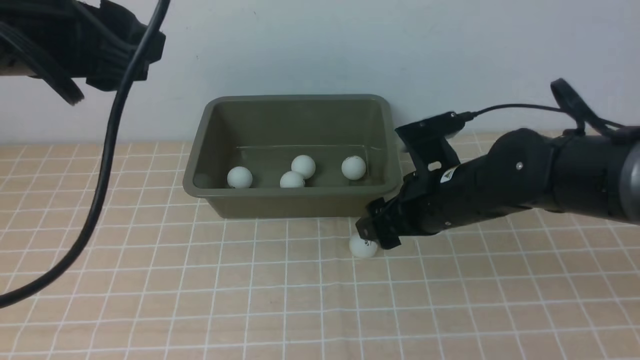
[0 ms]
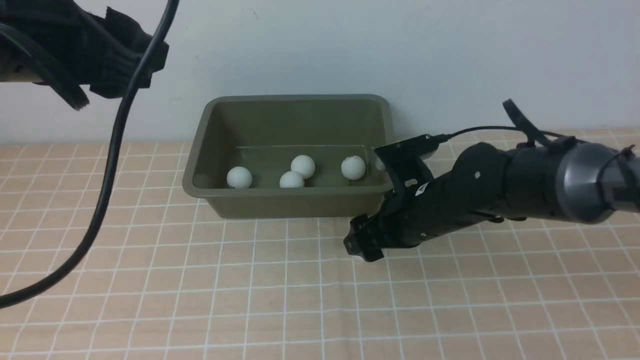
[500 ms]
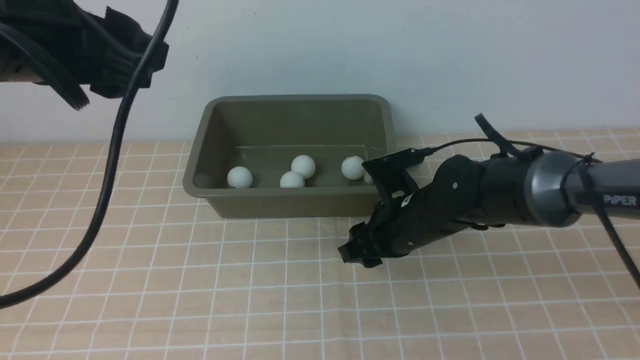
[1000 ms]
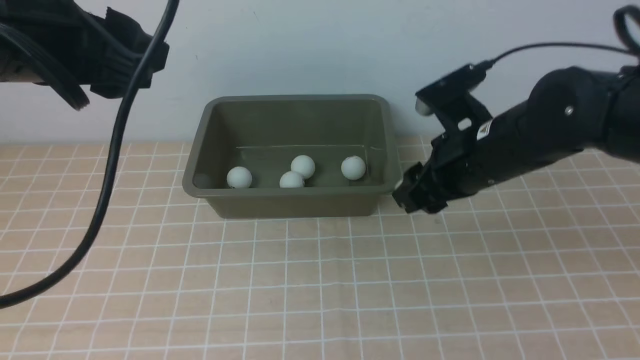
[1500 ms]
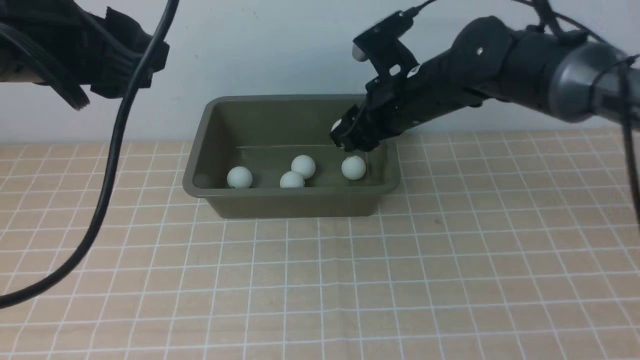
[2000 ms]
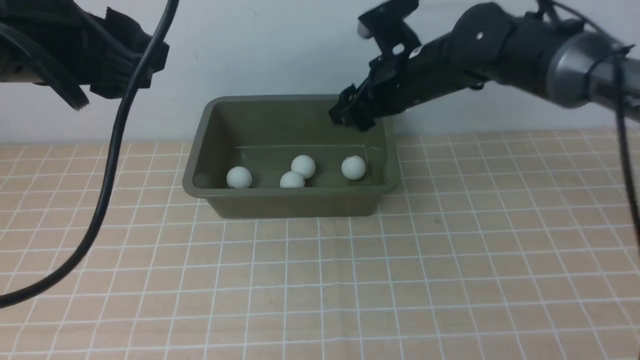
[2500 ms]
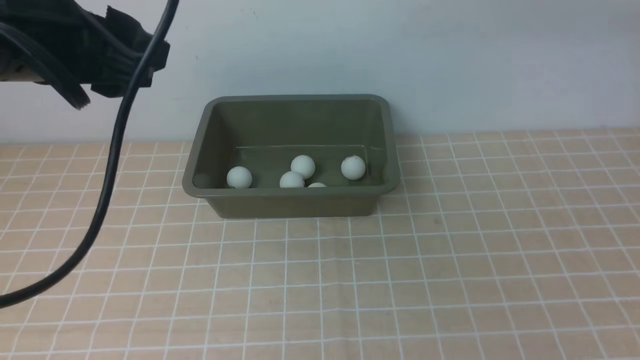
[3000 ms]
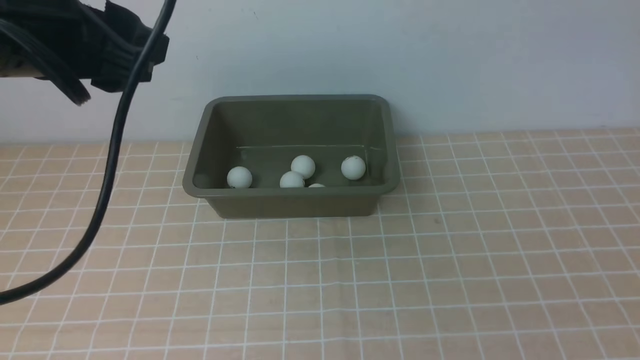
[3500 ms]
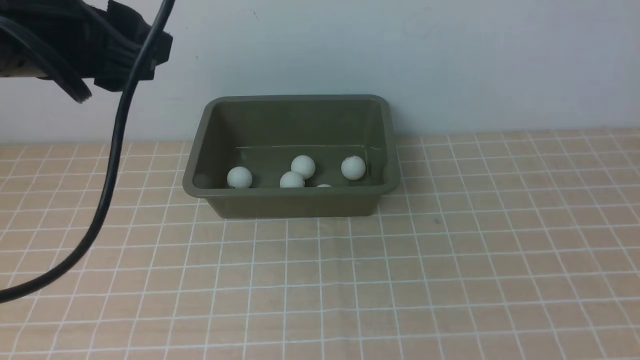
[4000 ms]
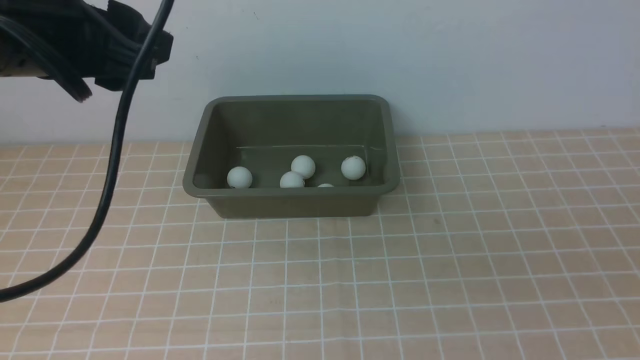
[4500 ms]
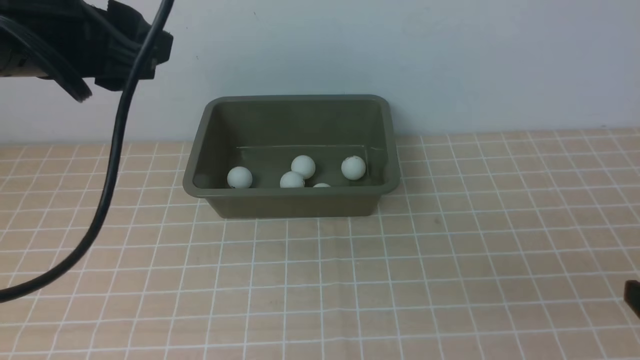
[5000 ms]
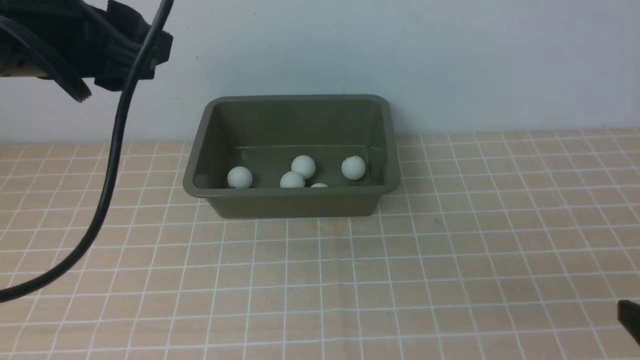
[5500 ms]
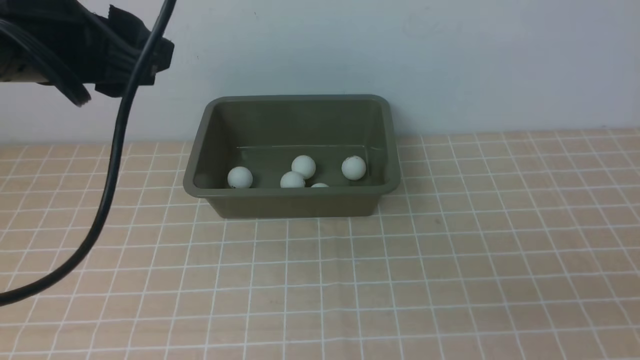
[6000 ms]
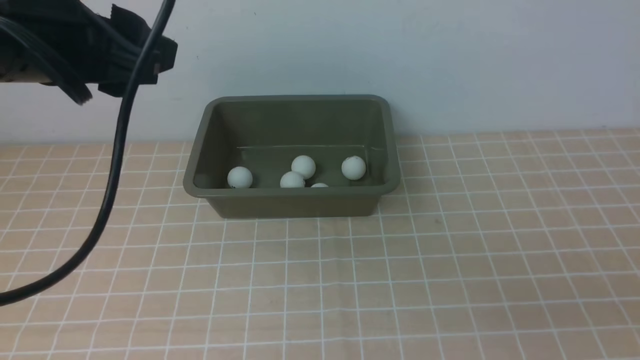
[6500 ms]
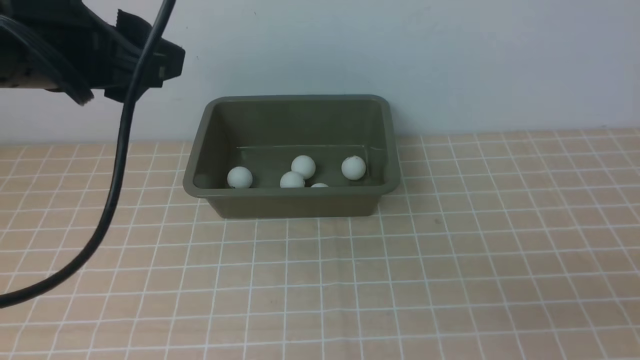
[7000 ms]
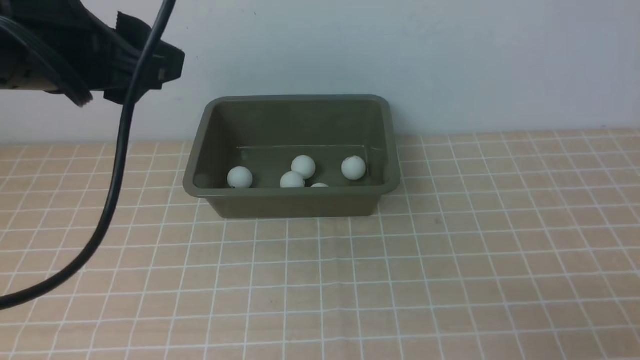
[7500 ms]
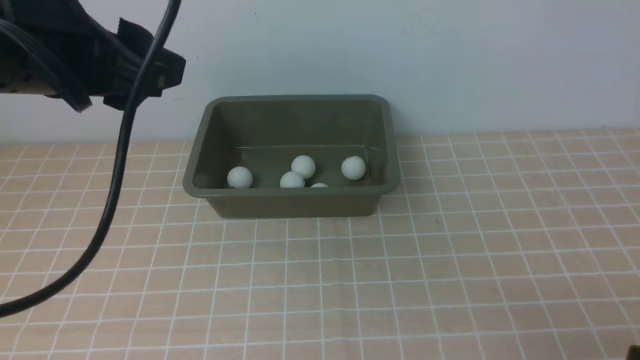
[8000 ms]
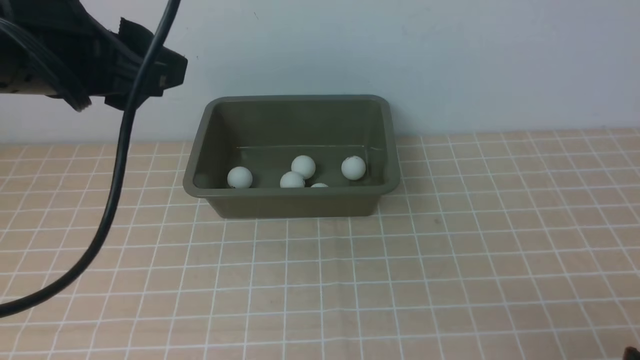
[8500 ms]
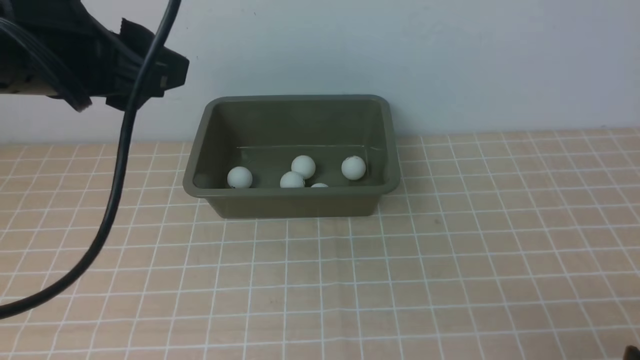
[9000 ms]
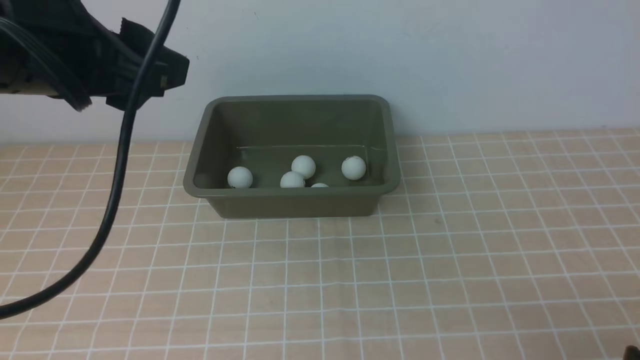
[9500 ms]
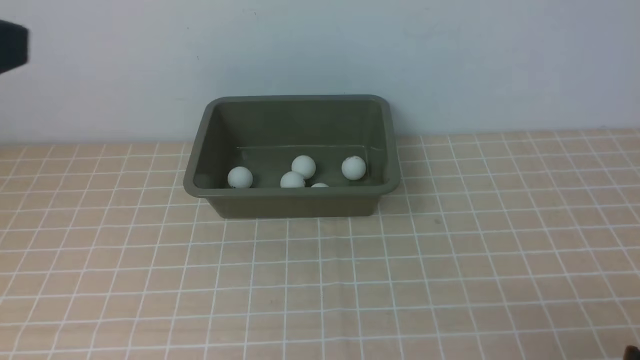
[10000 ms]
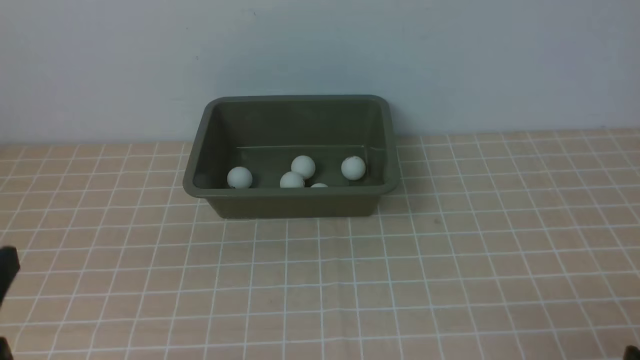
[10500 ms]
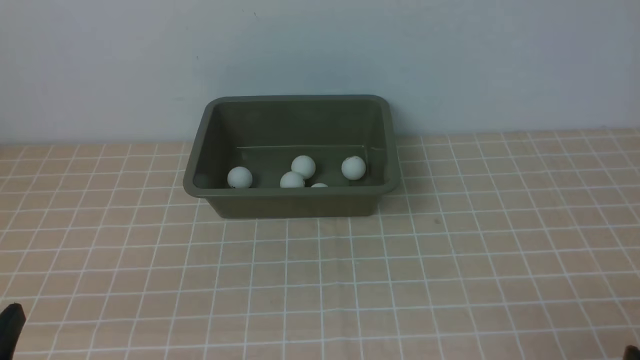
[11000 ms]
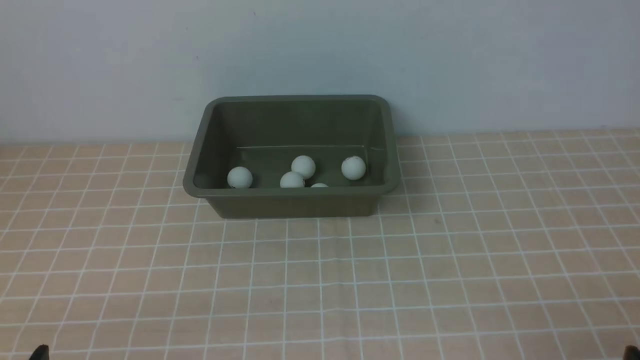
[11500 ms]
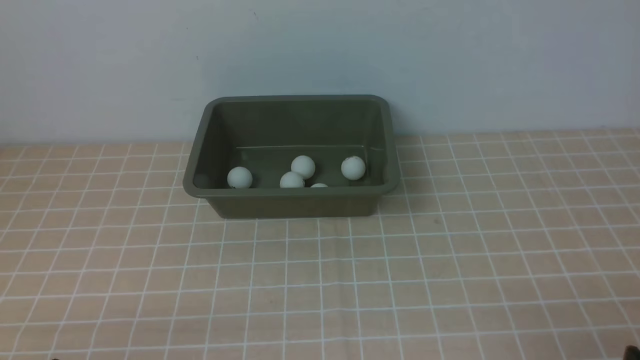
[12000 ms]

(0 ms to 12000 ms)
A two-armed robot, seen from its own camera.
Step, 1500 ms - 2500 ms: use the right arm to put the table tennis ball into the box.
0 ms - 2000 ms: The right gripper shifts approximately 10 cm forward and upward, and closes up.
2000 ms - 4000 ms: The right gripper moves backward, to the right and upward, roughly 40 cm, and opens.
8000 ms - 10000 ms: The left gripper moves backward and to the left, approximately 10 cm.
10000 ms - 12000 ms: The left gripper heads downward, covering about 25 cm.

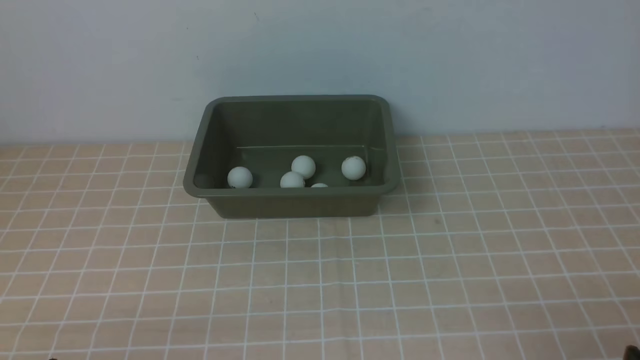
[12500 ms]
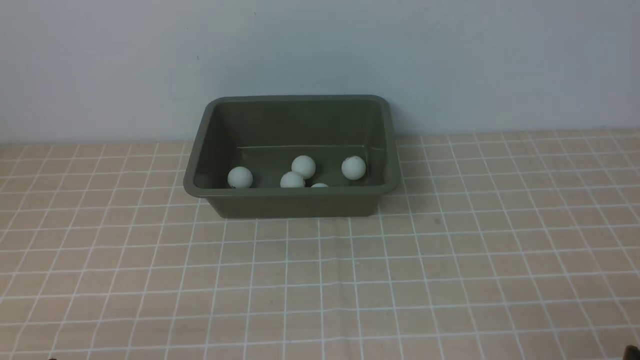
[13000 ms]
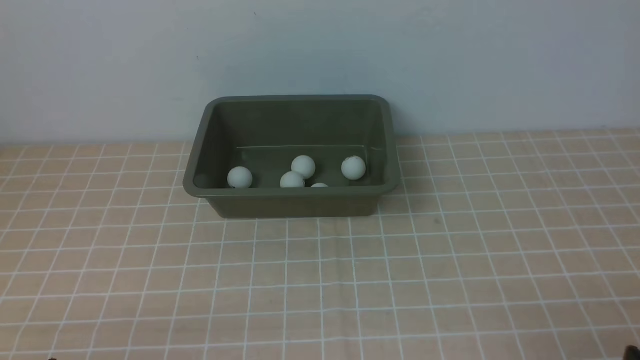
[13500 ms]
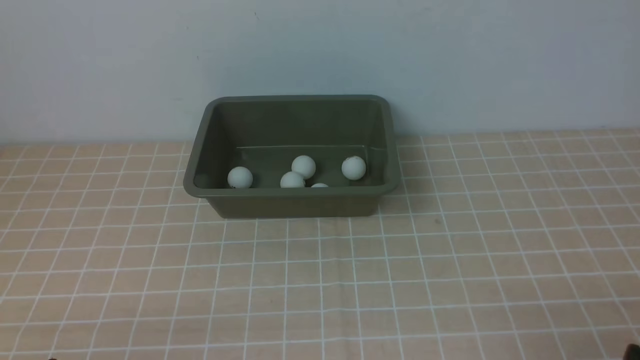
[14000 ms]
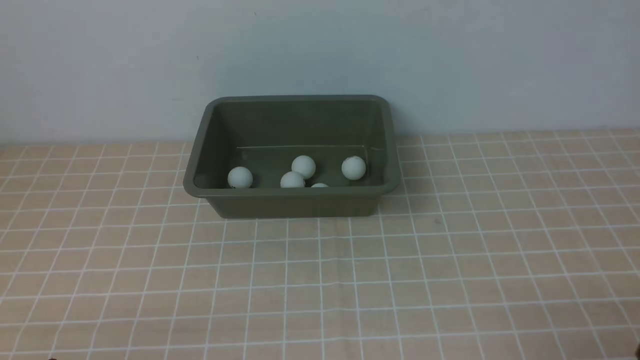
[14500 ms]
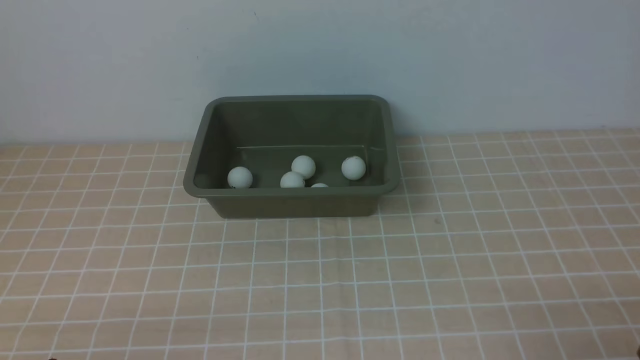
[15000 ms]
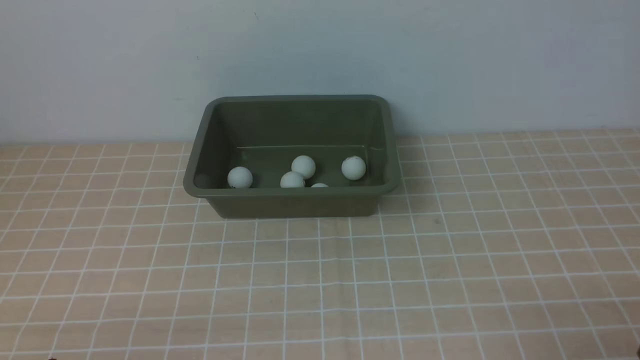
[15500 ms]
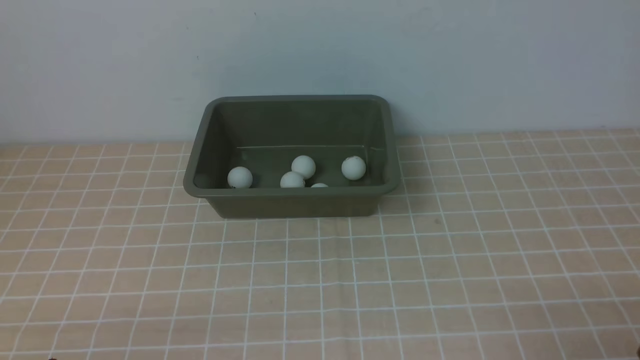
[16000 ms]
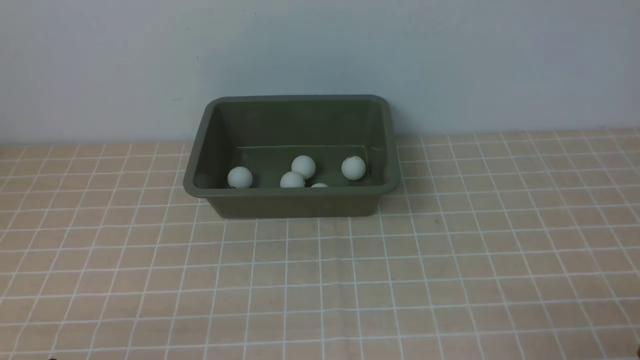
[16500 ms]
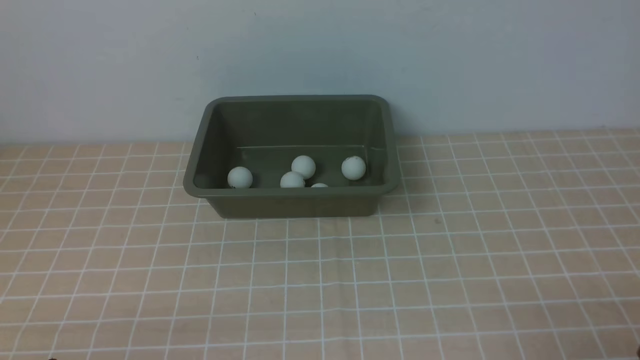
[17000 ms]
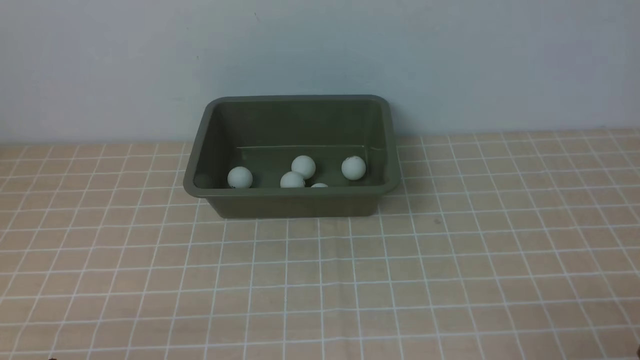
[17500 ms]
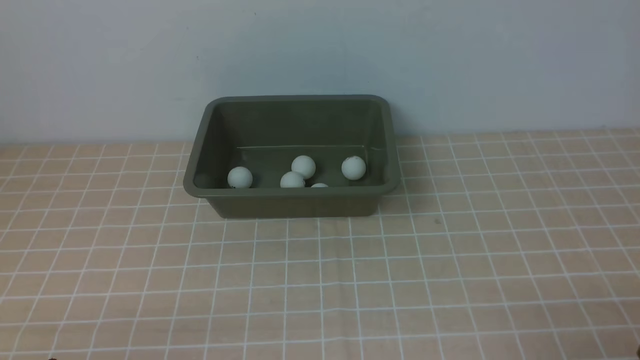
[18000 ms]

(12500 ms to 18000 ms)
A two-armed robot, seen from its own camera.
14500 ms - 18000 ms: Both grippers stay put.
